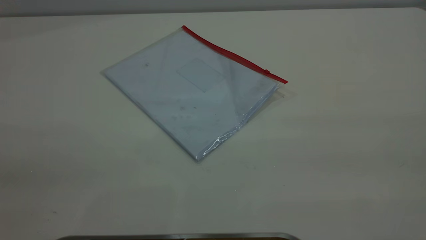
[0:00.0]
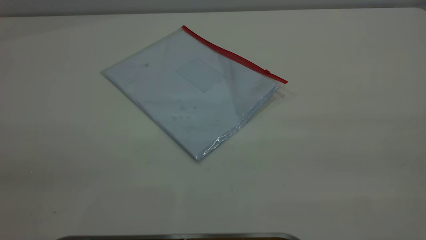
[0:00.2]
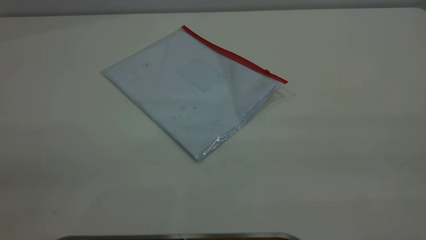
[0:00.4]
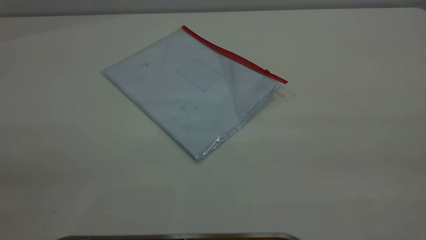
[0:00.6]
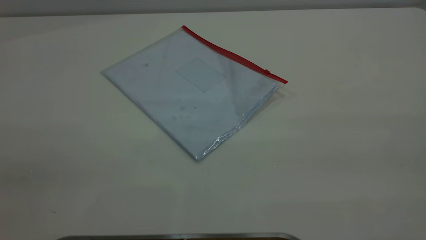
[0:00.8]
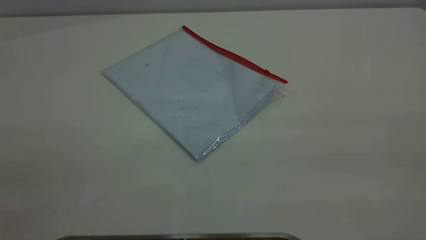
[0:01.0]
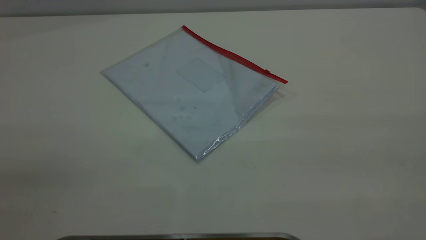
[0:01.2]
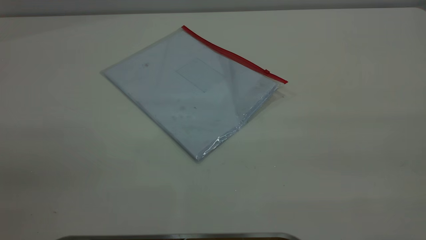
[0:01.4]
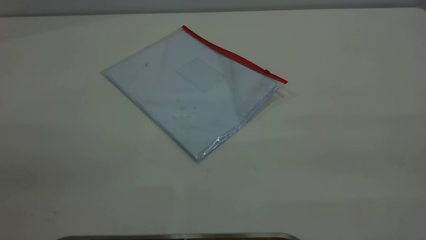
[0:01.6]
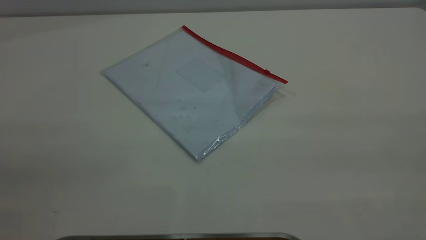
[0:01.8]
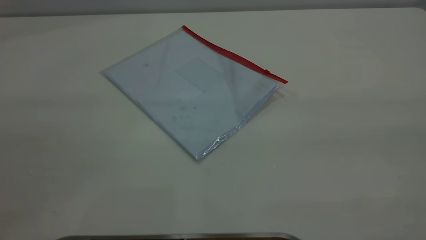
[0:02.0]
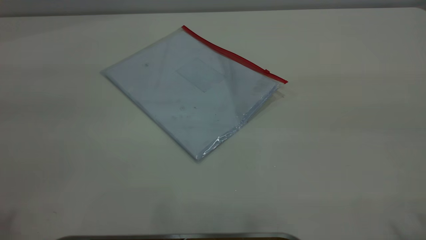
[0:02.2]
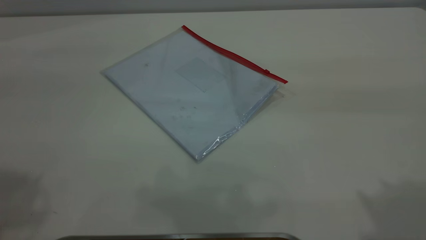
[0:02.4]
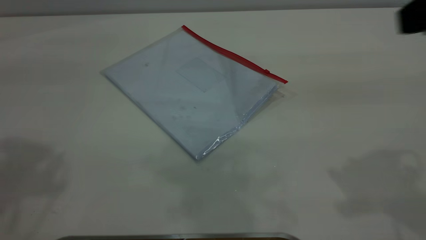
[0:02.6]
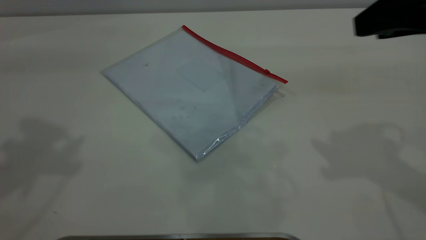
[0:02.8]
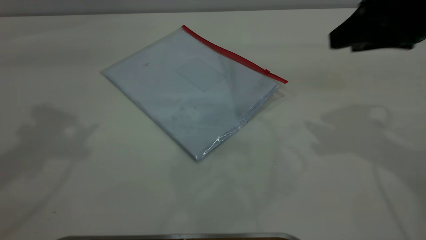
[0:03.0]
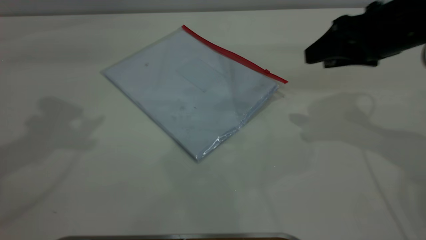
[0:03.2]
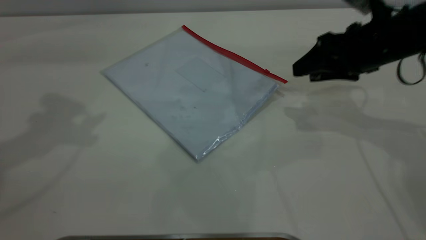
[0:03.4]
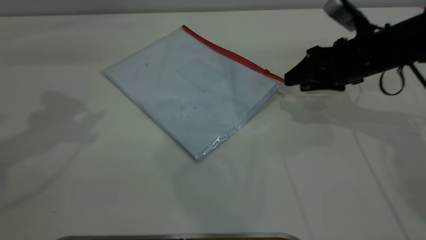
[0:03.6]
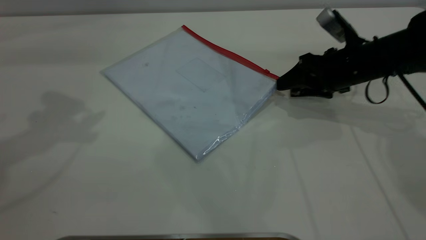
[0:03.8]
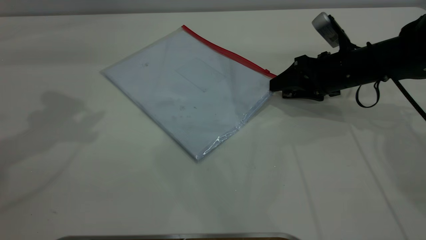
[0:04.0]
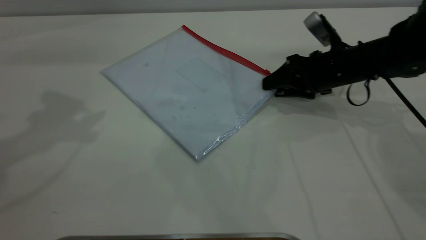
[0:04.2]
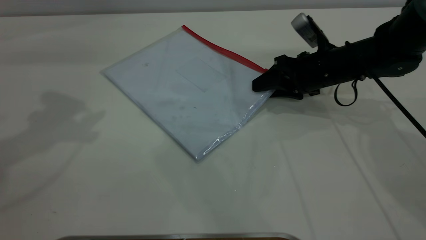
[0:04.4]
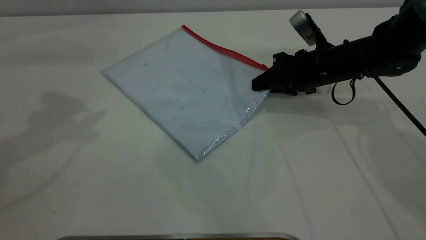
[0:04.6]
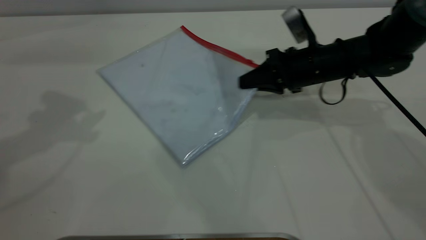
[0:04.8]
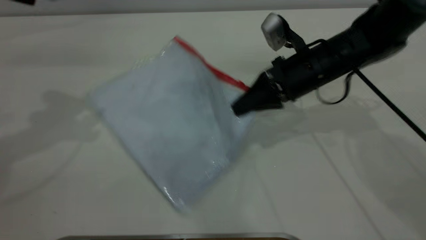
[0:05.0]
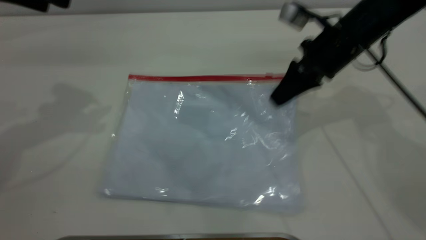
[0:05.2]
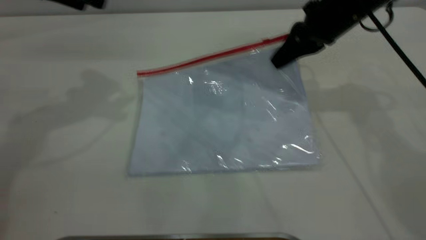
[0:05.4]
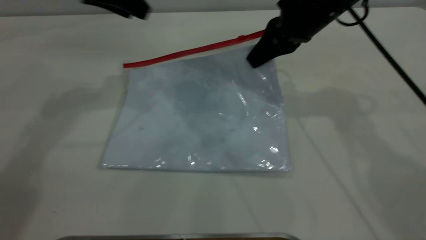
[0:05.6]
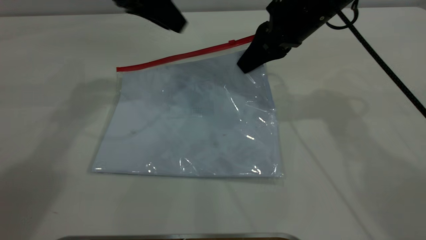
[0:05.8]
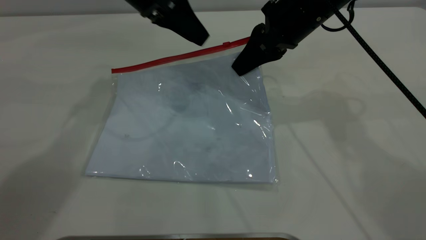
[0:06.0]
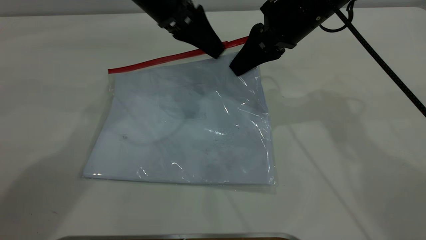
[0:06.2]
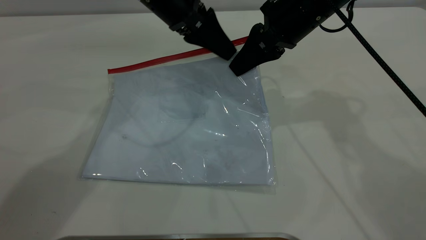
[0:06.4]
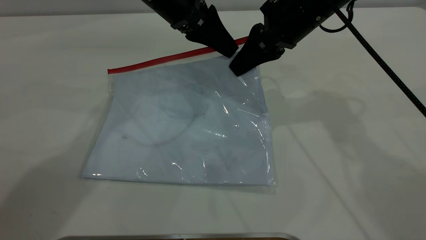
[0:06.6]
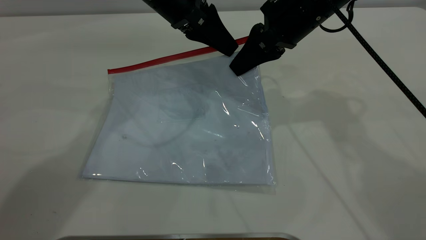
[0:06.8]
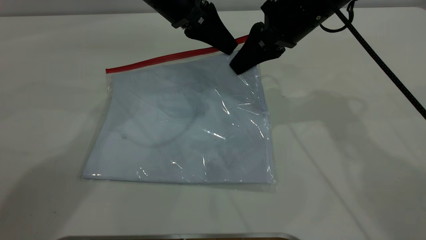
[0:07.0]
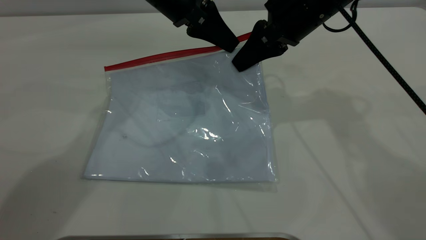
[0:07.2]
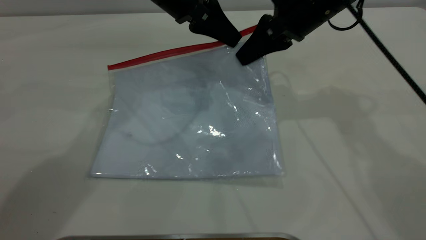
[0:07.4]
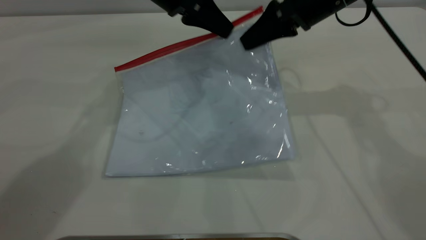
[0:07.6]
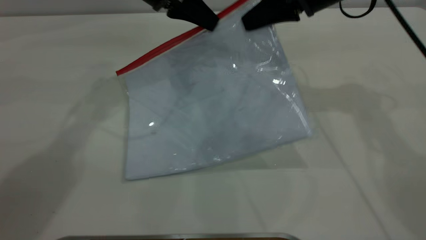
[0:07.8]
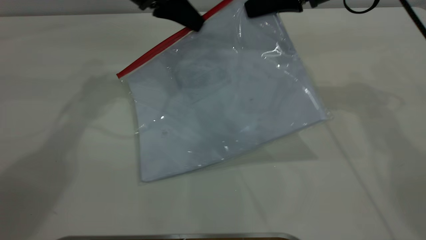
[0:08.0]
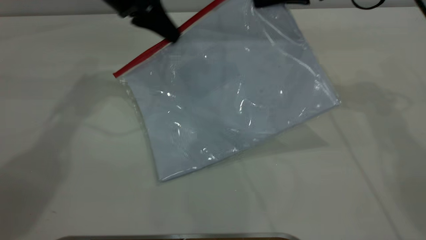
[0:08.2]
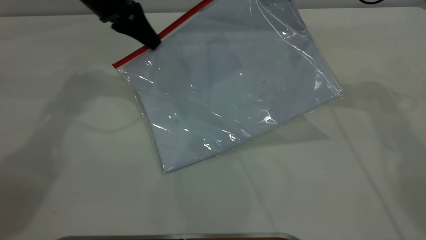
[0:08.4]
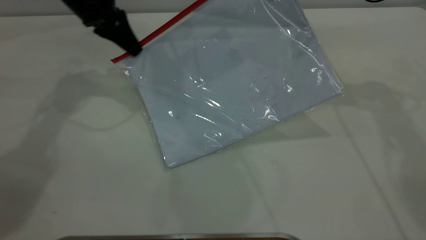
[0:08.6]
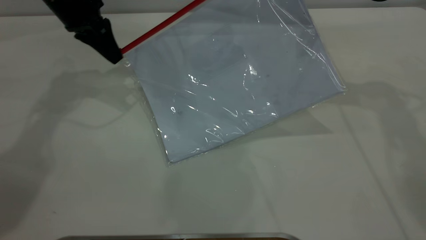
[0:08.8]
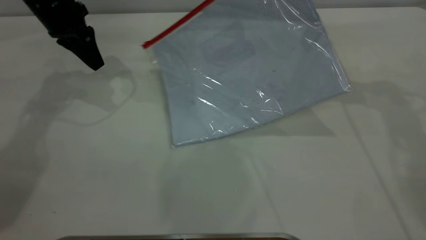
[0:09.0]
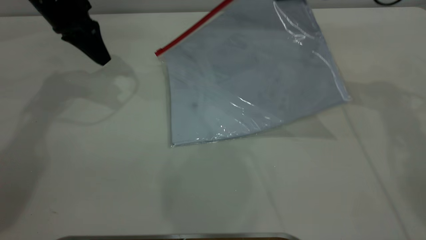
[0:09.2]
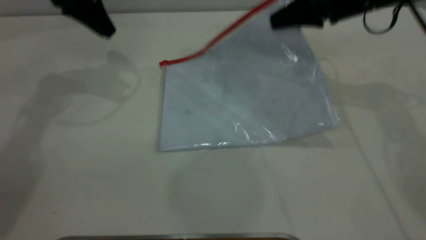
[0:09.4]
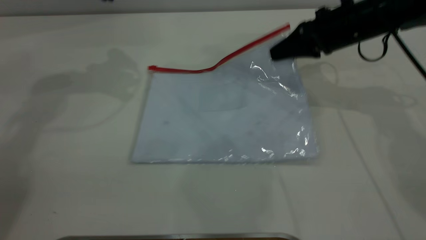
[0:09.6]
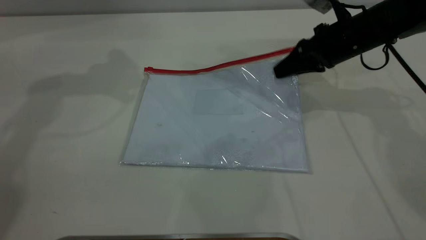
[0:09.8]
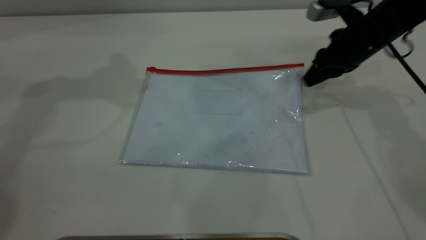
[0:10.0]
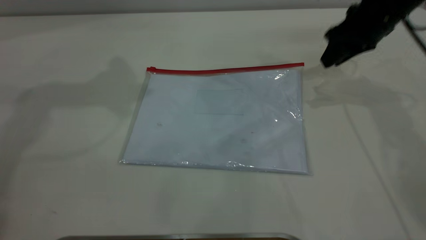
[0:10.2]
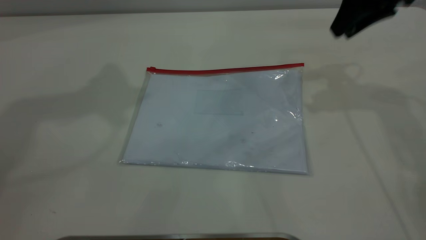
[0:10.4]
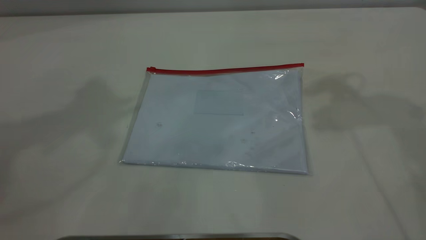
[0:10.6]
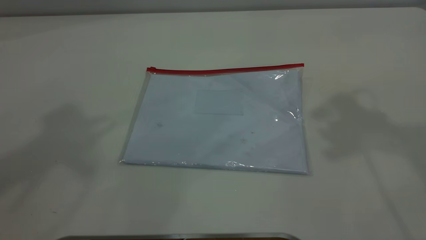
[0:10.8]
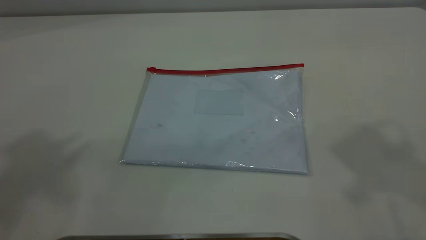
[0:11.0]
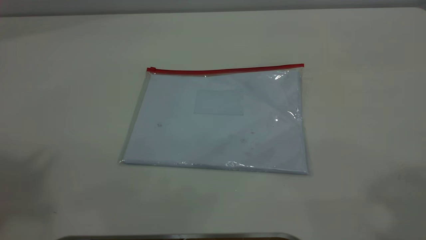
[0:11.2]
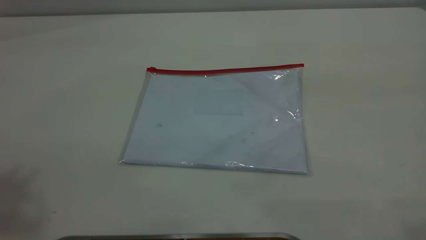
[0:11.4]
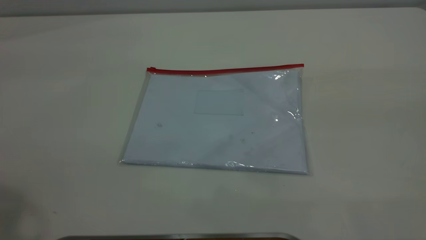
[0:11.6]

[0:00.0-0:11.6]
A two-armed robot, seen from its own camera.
Step, 0:00.0 to 0:05.4: Pick up the transparent plastic bag with the right gripper.
Step, 0:05.6 to 0:09.0: Pulling up the zipper on the transparent plastic bag with the left gripper to close it.
Step, 0:09.2 to 0:10.4: Place the transparent plastic bag.
0:00.0 to 0:01.4: Neither gripper changes place.
0:01.4 to 0:02.8: The right gripper travels forward and downward by about 30 cm.
0:02.8 to 0:04.4: The right gripper heads downward and forward, covering approximately 25 cm. Meanwhile the left gripper heads forward and downward, covering about 5 cm.
0:04.4 to 0:05.8: The right gripper shifts about 15 cm upward and to the left, and closes, while the left gripper shifts some 20 cm to the right, forward and downward.
0:05.8 to 0:07.2: The left gripper goes about 5 cm to the right, and closes.
0:07.2 to 0:08.8: The left gripper is displaced to the left by about 15 cm. The right gripper shifts about 10 cm to the right.
0:08.8 to 0:10.2: The left gripper moves upward, about 25 cm, and opens its fingers, while the right gripper opens its fingers.
0:10.2 to 0:11.6: The right gripper shifts roughly 40 cm backward and upward.
